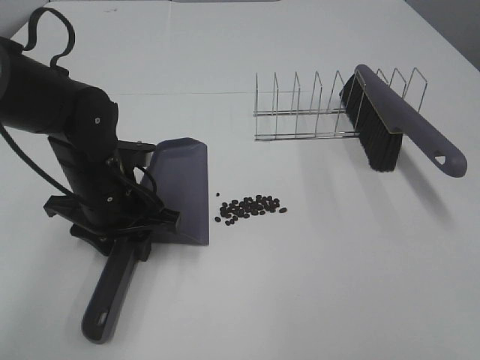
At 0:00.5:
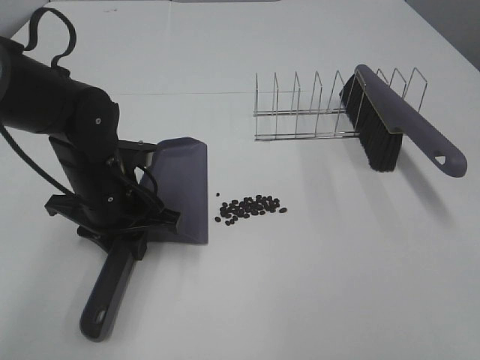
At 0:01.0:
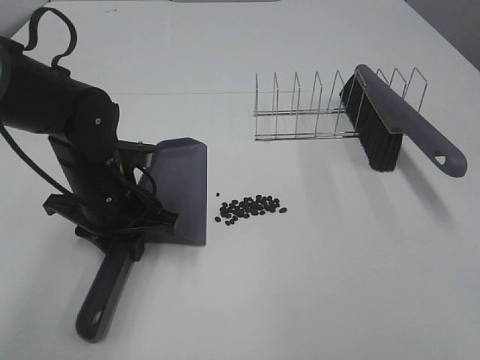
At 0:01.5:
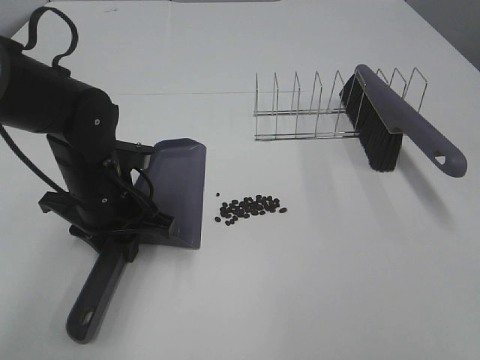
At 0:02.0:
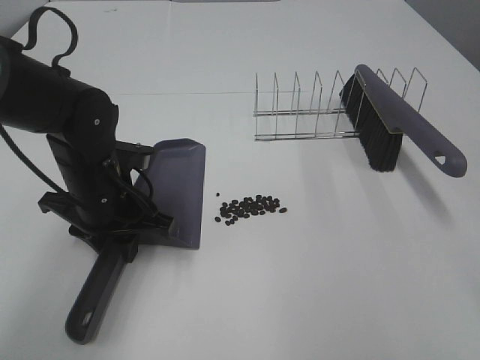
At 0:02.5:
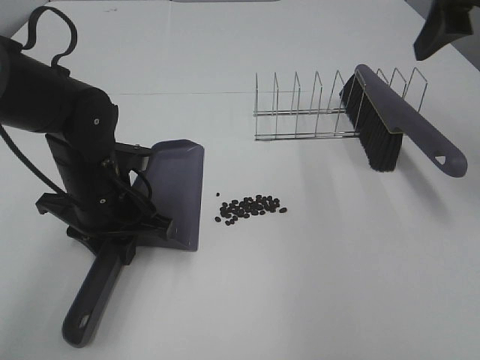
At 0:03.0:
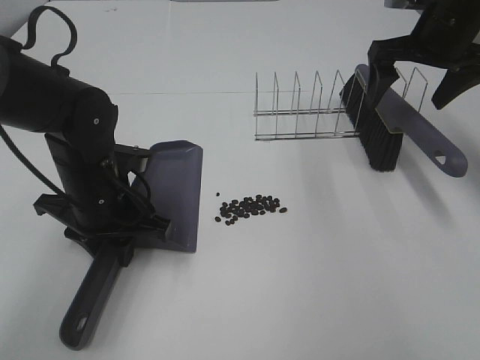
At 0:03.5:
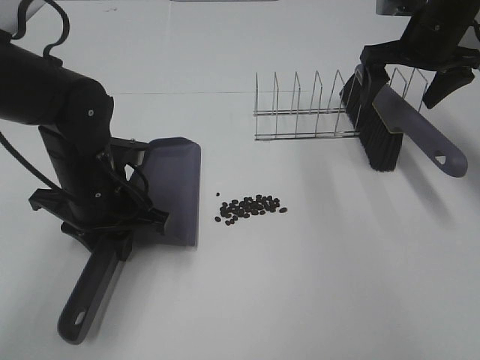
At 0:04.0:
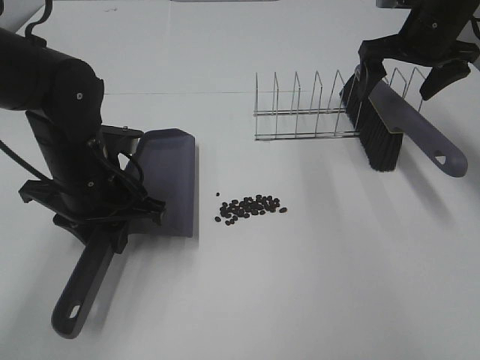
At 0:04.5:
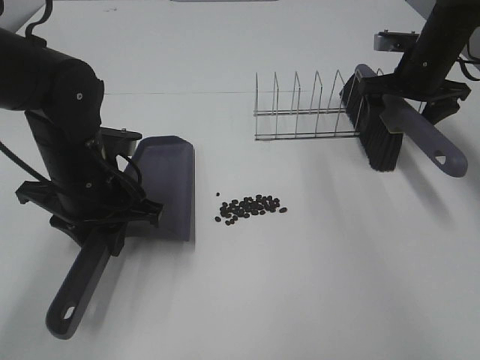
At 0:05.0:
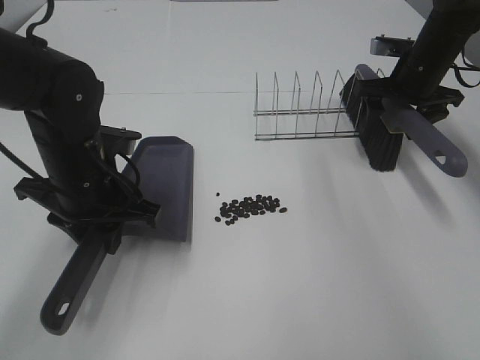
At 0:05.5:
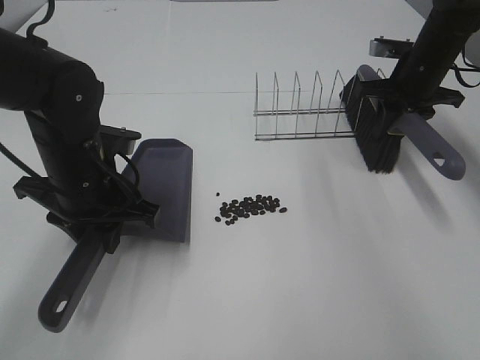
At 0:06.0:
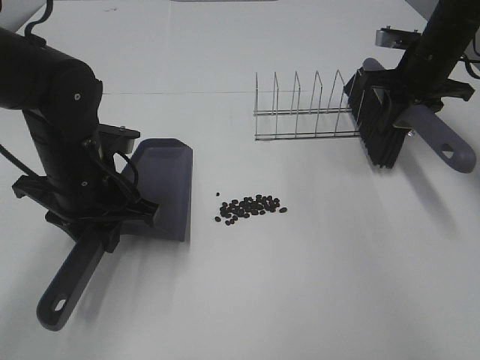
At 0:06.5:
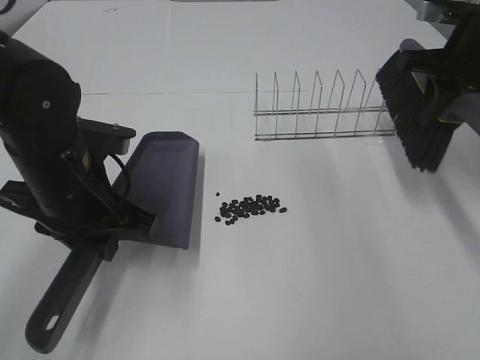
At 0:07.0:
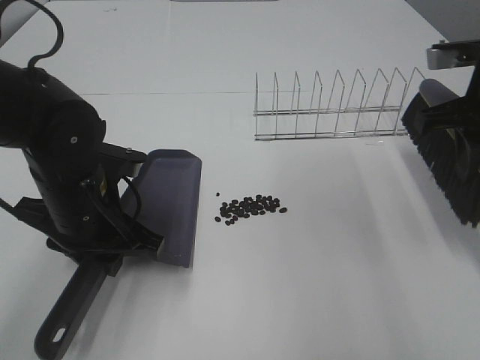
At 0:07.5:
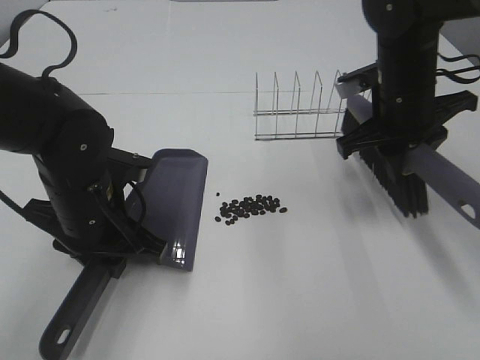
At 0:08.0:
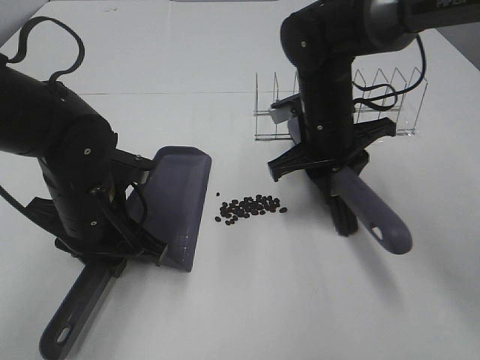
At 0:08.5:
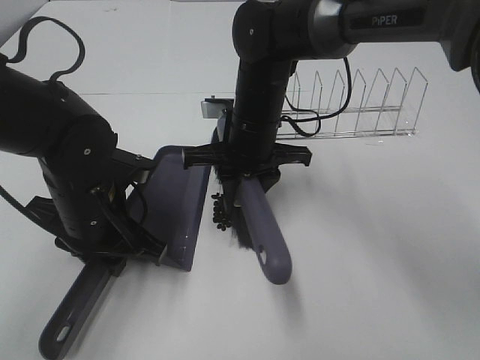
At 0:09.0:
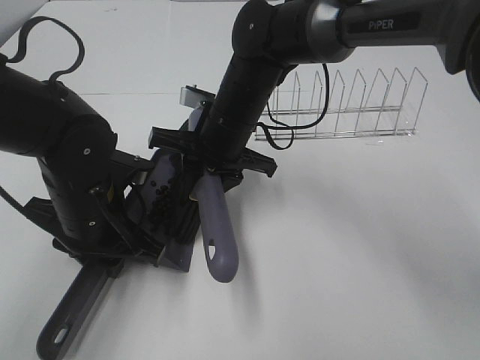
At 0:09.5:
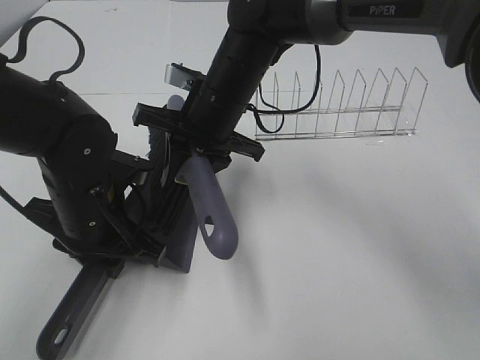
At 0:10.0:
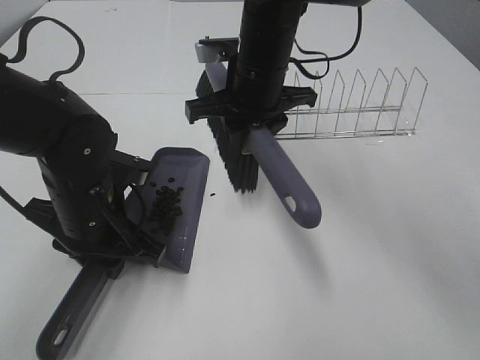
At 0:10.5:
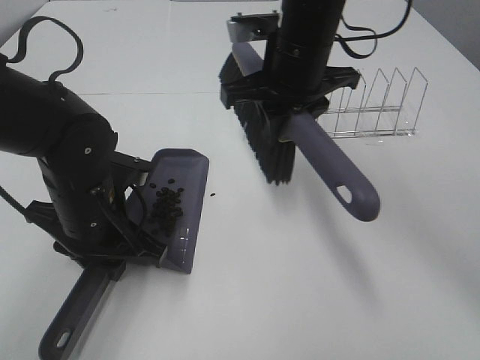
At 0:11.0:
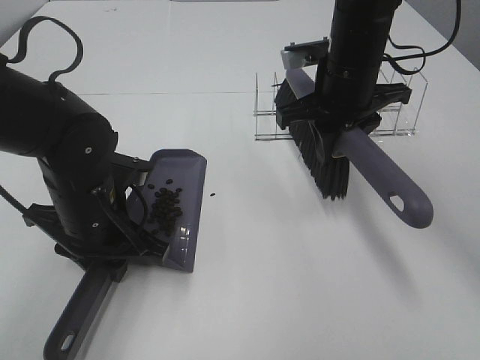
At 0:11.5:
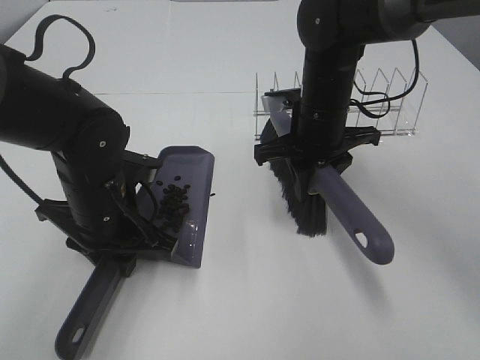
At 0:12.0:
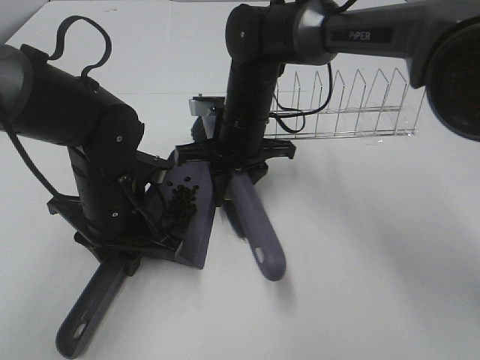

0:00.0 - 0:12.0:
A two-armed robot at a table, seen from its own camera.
Task of the whole recording: Sweep Coffee Bean.
Step, 0:01.5 - 0:05.0: Right hand:grab the broom.
0:00.0 - 0:02.0: The right gripper shifts about 10 cm forward and upward.
0:02.0 - 0:04.0: The right gripper goes roughly 40 cm forward.
0:04.0 - 0:06.0: The right gripper closes up.
0:06.0 - 0:08.0: The right gripper moves to the left and backward, some 20 cm.
0:08.0 - 0:10.0: The right gripper is displaced to the left and upward by about 10 cm.
0:10.0 - 0:12.0: The right gripper is displaced downward by approximately 10 cm, and moves approximately 10 cm to the right and comes back.

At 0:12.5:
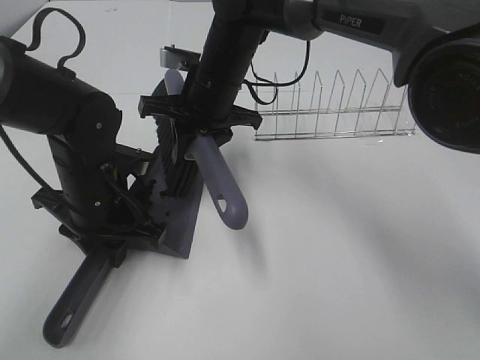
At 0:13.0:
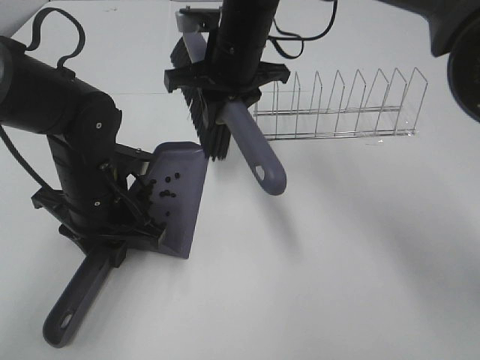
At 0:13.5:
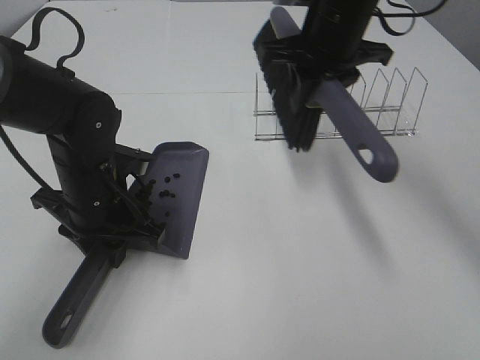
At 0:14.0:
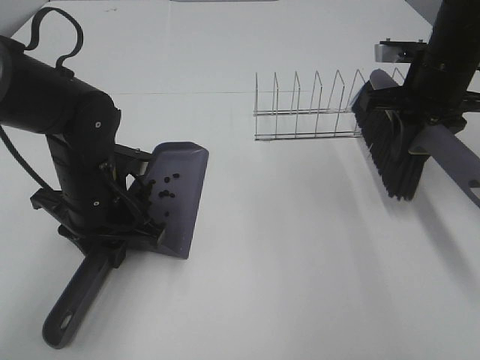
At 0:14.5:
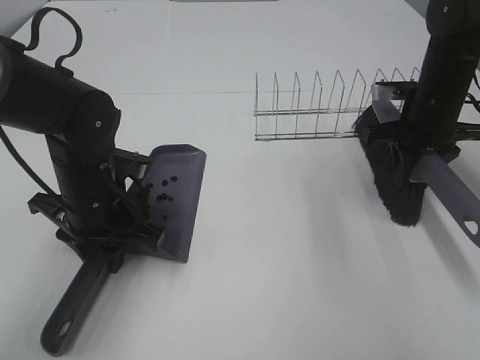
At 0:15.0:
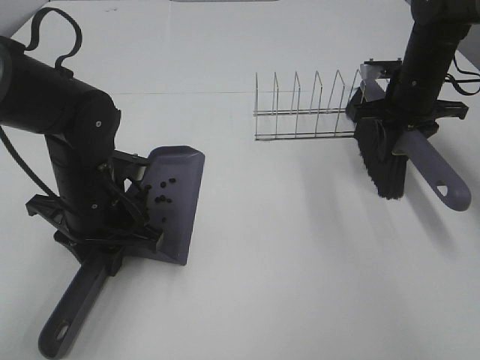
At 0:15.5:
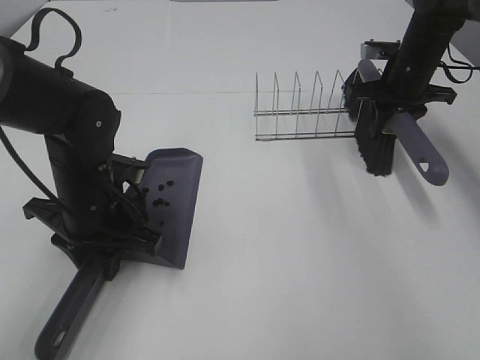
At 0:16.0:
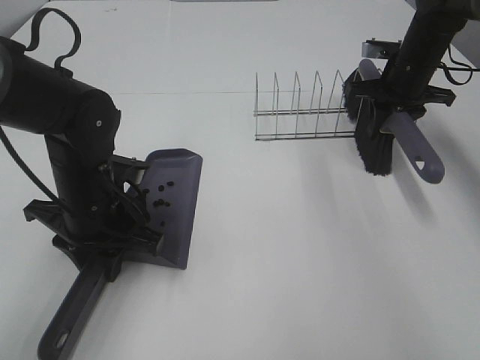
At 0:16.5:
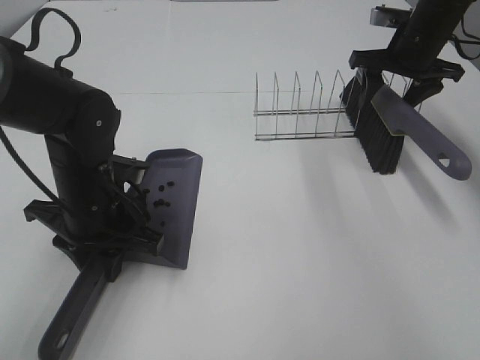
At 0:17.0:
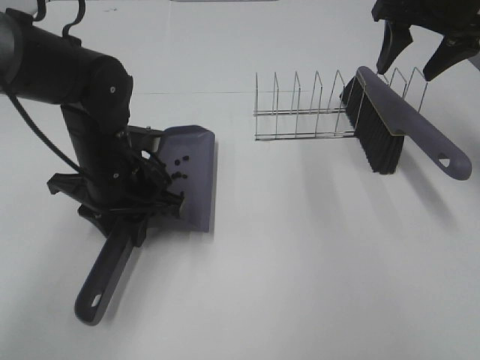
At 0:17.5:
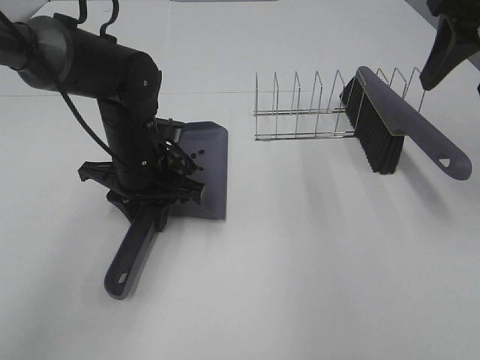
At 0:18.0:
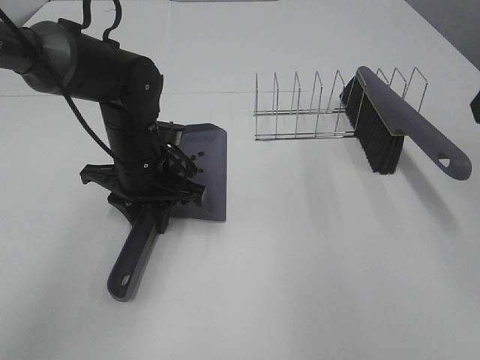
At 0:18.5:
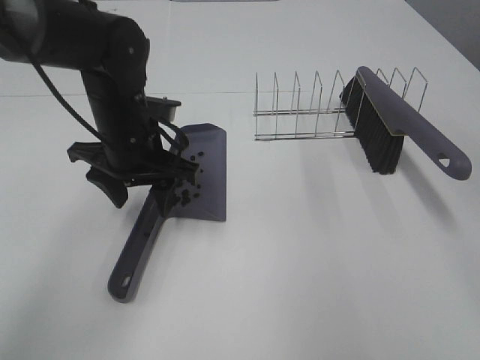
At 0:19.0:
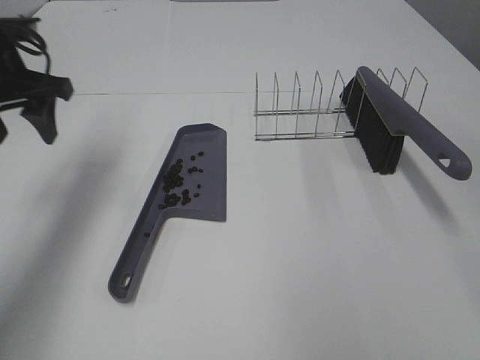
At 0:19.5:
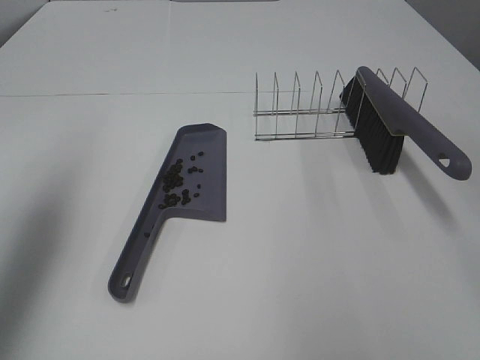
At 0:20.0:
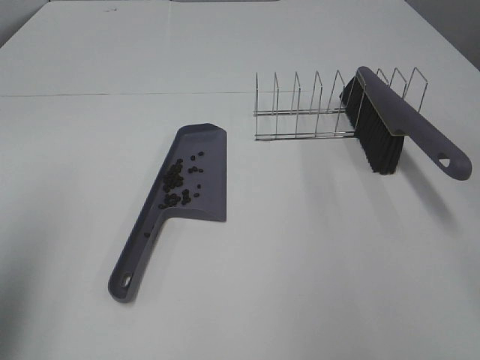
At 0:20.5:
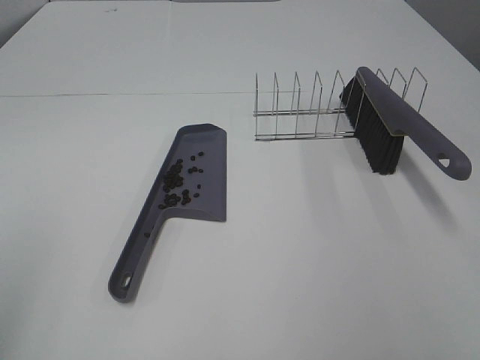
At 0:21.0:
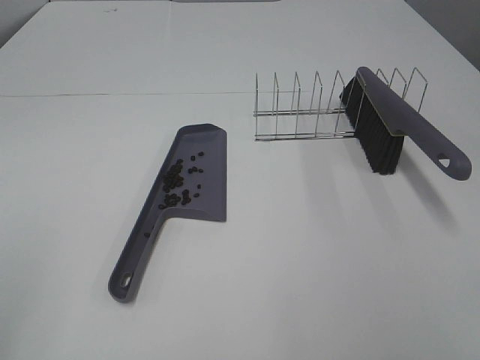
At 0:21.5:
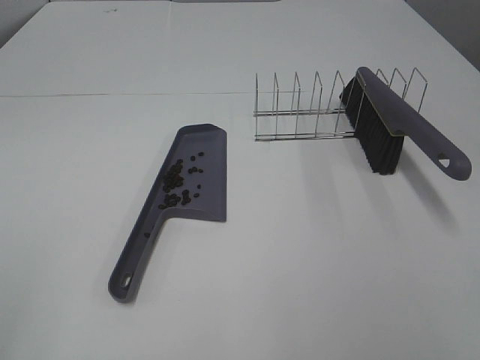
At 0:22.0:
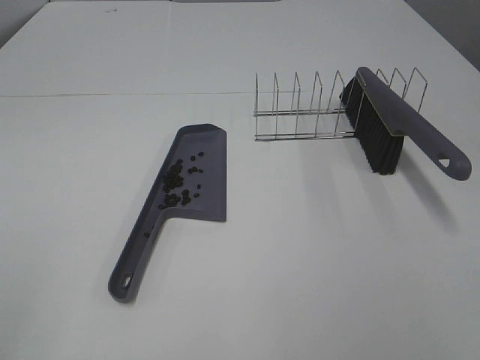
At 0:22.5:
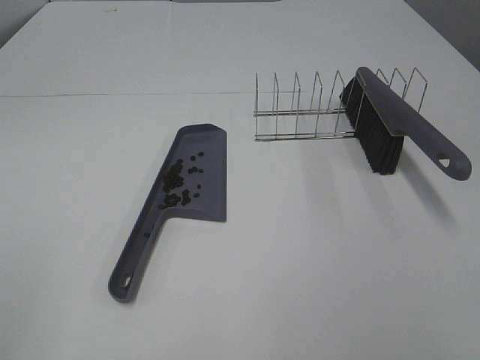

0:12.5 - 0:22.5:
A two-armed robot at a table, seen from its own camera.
Task of the whole recording: Sweep Coffee Bean.
Step, 0:13.0 - 0:16.5: Right hand:place the broom on the rack.
Step, 0:17.0 - 0:18.0: Left hand:place the dustpan on the table.
0:12.5 - 0:14.5: The right gripper goes roughly 25 cm to the right.
0:14.5 - 0:16.5: The right gripper moves forward and upward, some 10 cm, and opens up.
0:16.5 - 0:18.5: The left gripper moves forward, about 5 cm, and opens, while the right gripper moves backward and upward, approximately 35 cm.
0:18.5 - 0:20.5: The right gripper shifts approximately 10 cm backward. The left gripper shifts about 40 cm backward, to the left and upward.
